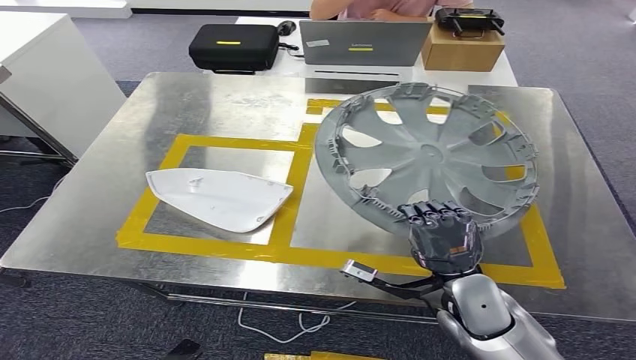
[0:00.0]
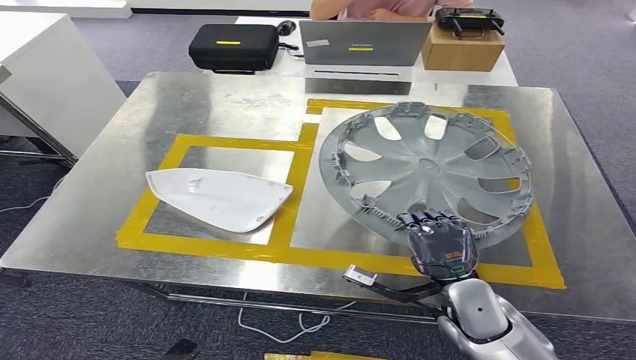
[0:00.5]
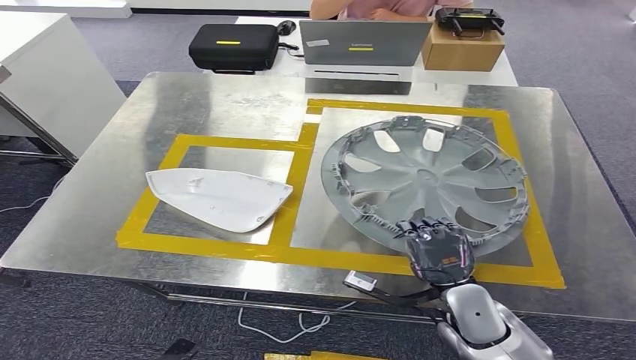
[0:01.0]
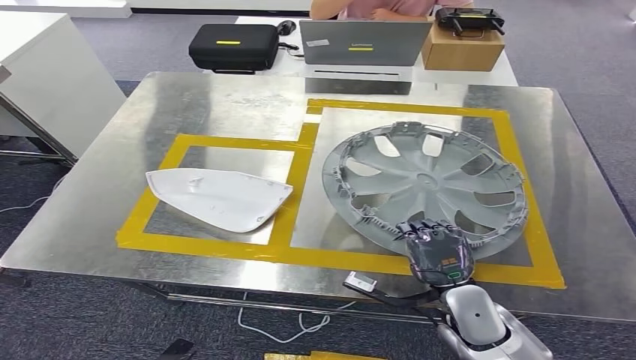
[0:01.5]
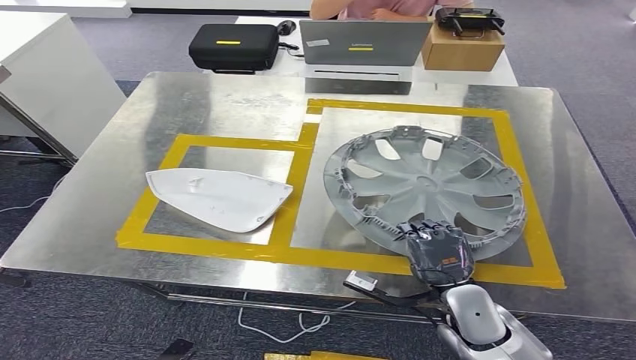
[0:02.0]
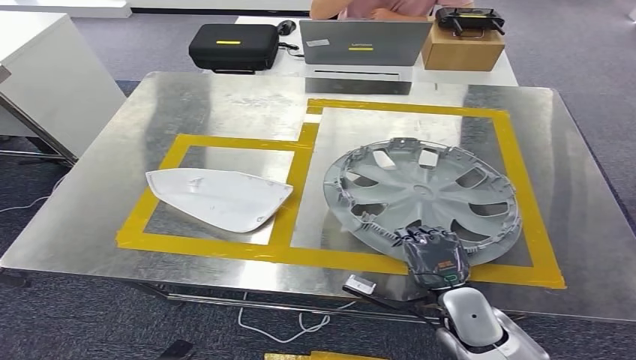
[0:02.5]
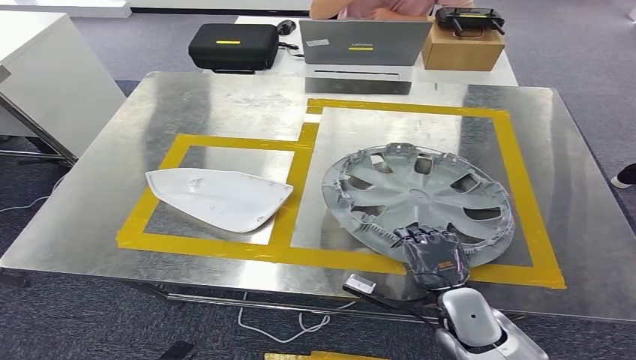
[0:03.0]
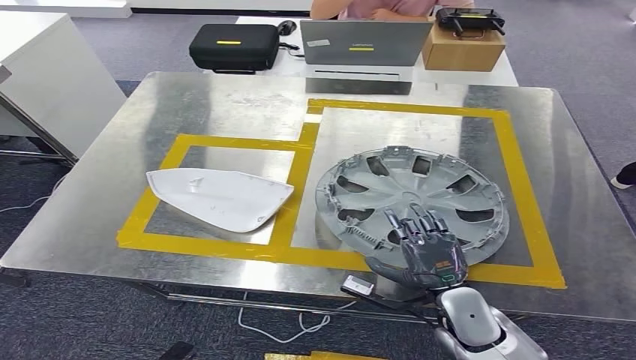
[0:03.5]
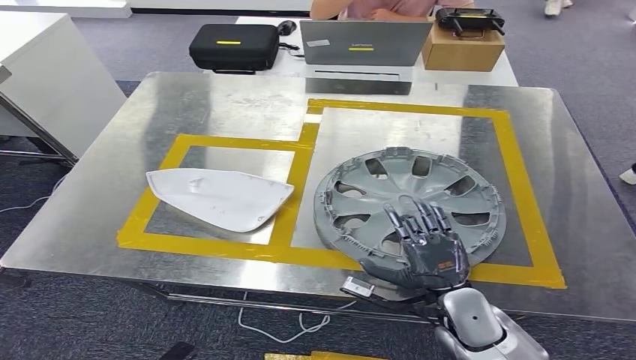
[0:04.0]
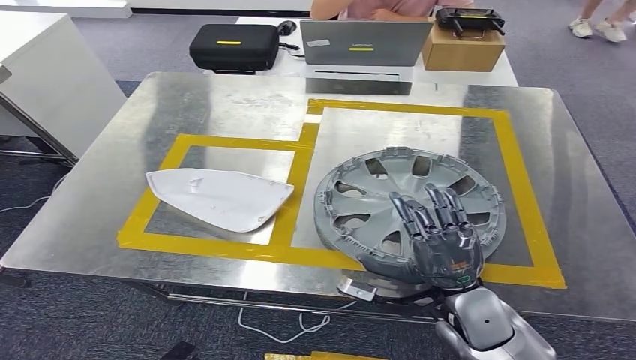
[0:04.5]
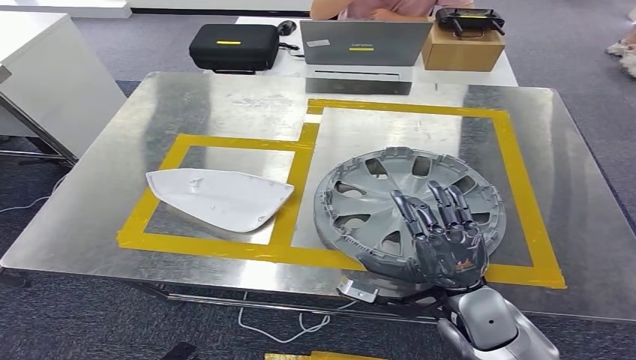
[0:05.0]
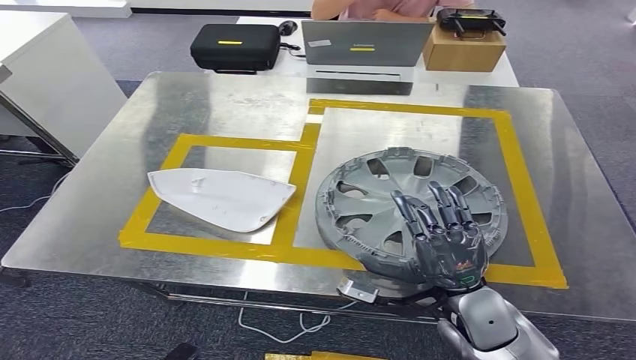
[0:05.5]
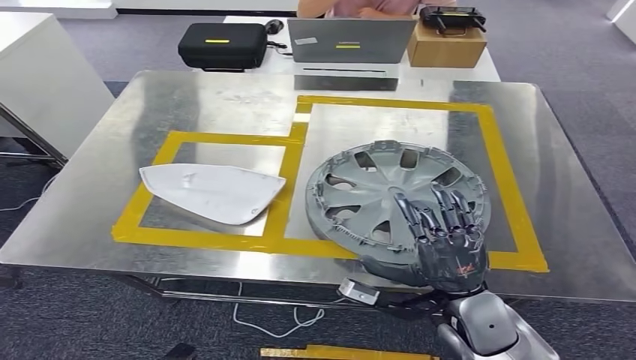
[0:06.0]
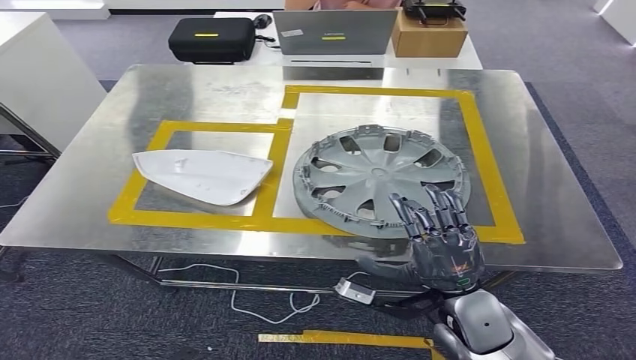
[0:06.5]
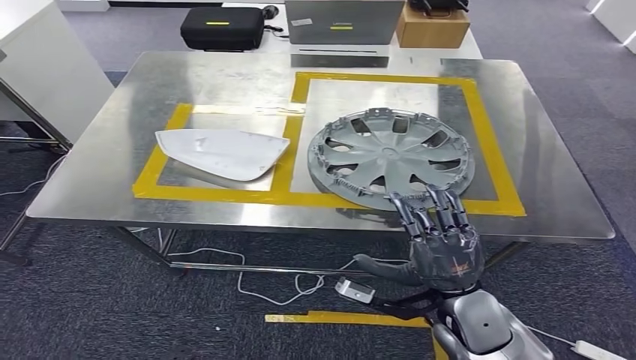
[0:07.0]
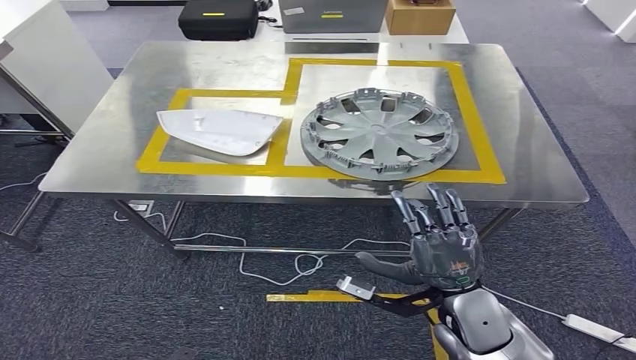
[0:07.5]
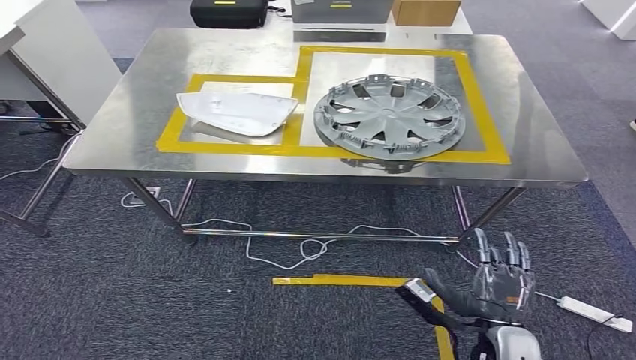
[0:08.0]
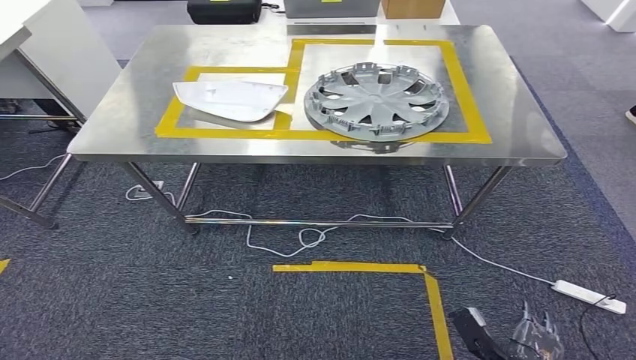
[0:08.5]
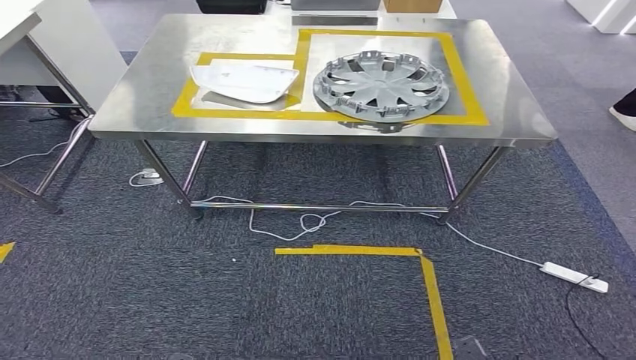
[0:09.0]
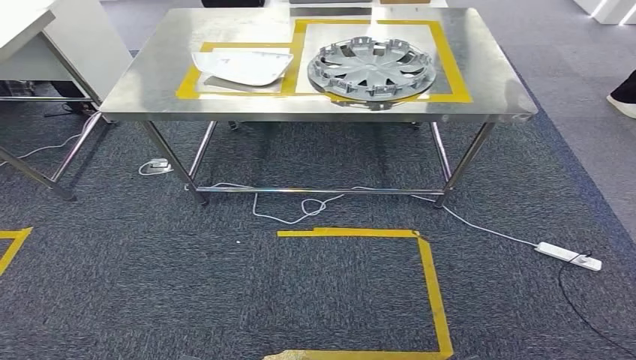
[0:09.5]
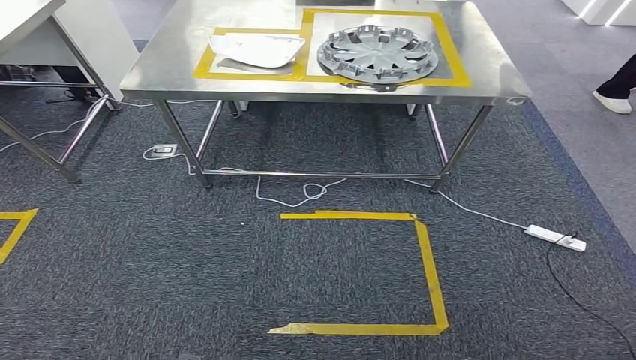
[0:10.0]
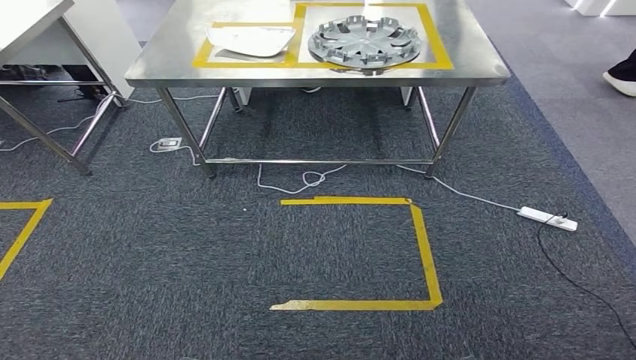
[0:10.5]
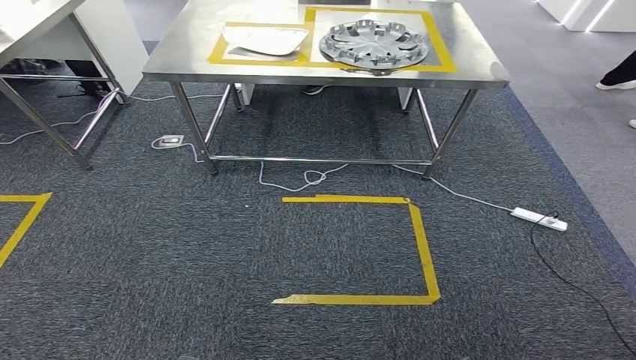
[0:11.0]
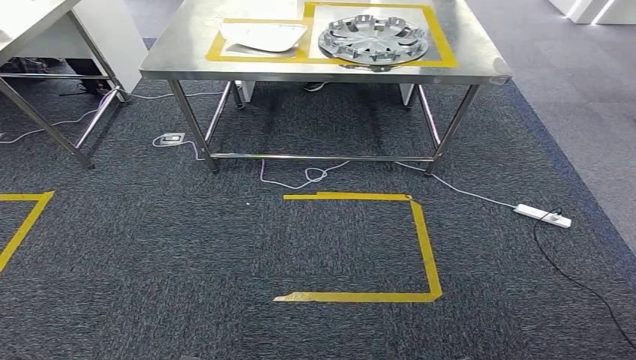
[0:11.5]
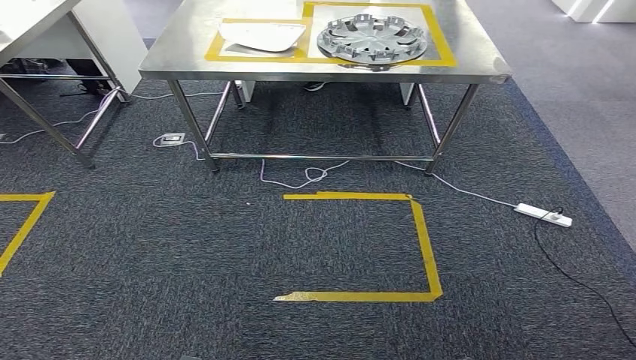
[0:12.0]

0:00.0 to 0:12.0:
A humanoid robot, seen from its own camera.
Step, 0:00.0 to 0:09.0: Insert the small component into the corresponding slot on the workbench.
0:00.0 to 0:04.0: The hands move only a little.

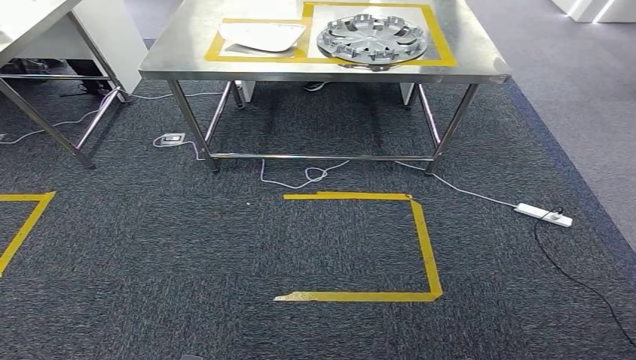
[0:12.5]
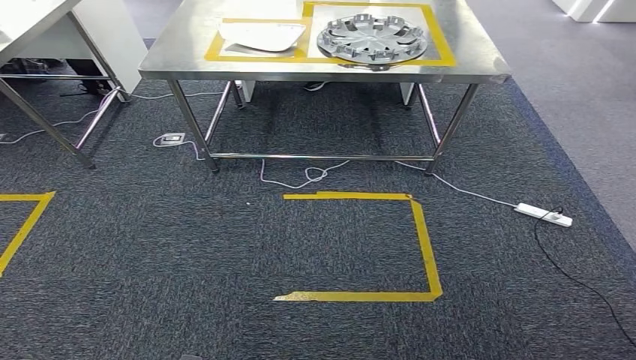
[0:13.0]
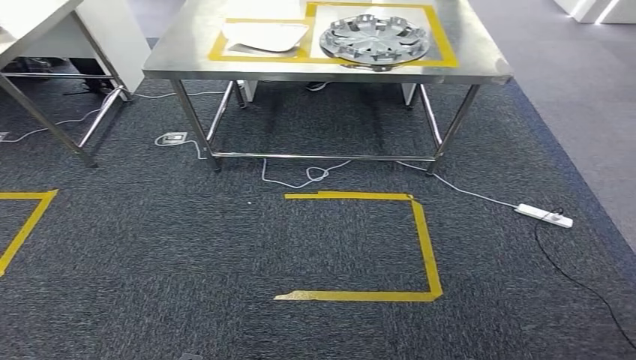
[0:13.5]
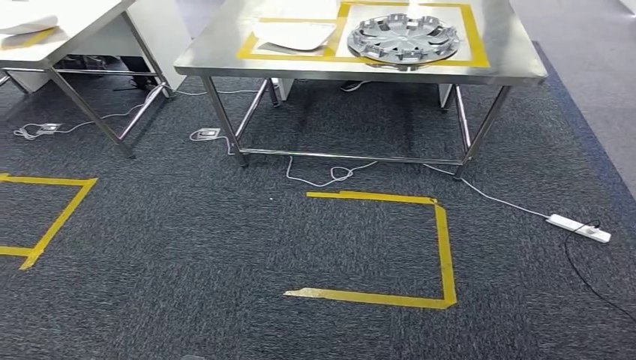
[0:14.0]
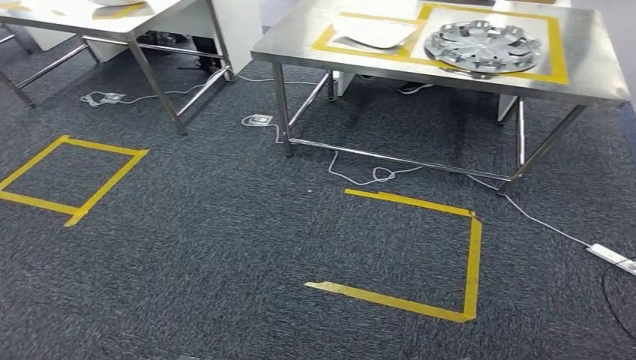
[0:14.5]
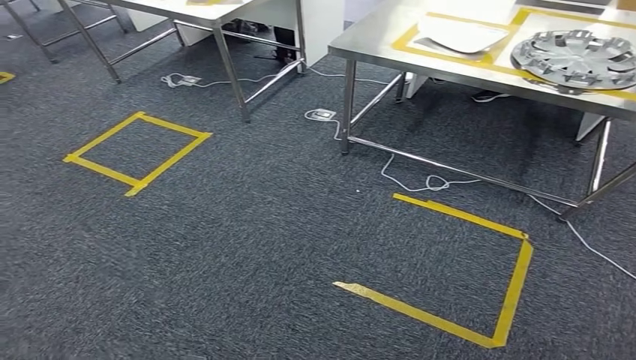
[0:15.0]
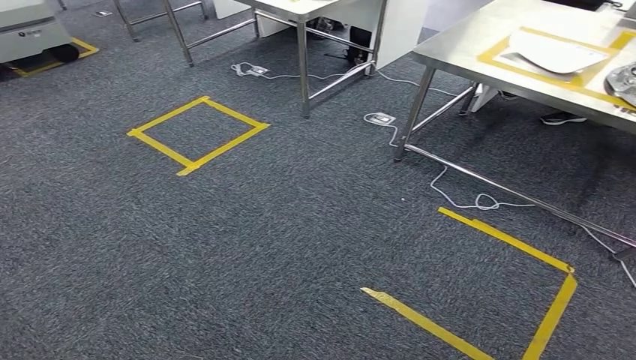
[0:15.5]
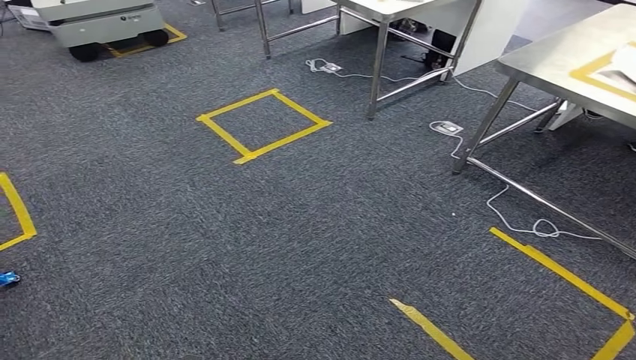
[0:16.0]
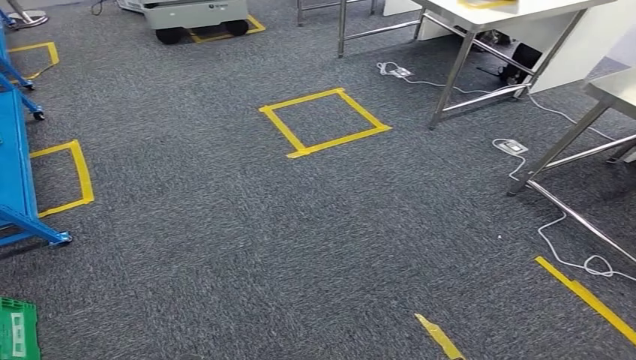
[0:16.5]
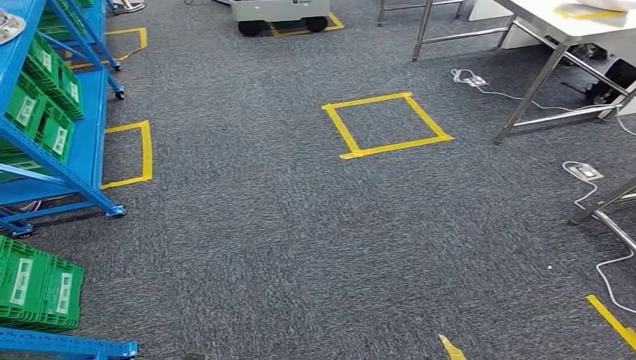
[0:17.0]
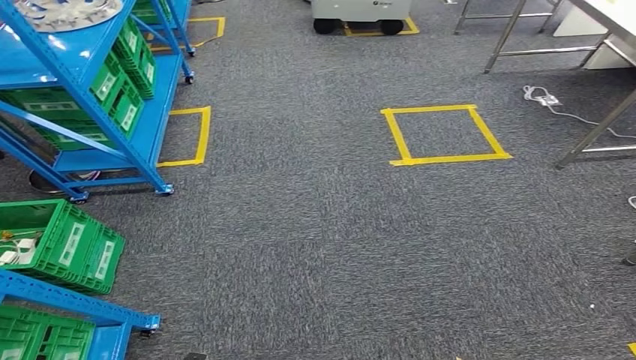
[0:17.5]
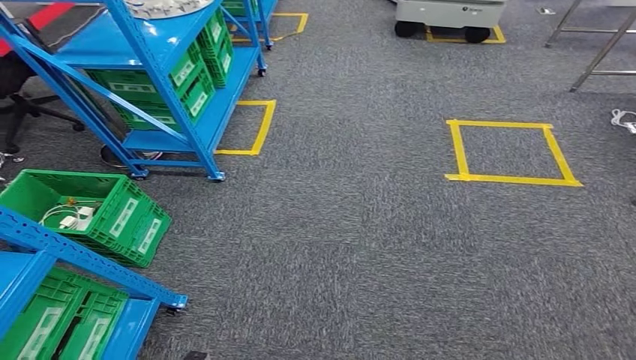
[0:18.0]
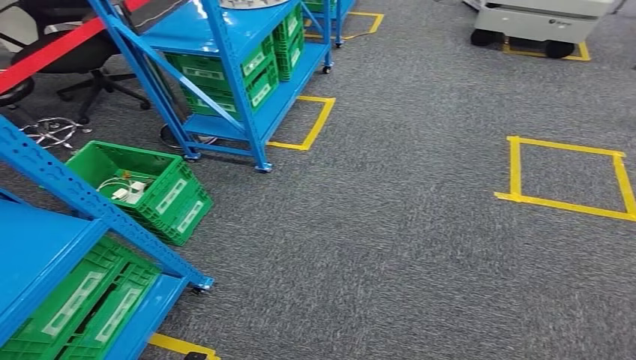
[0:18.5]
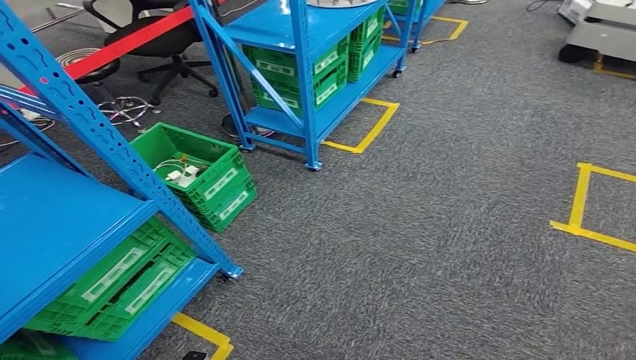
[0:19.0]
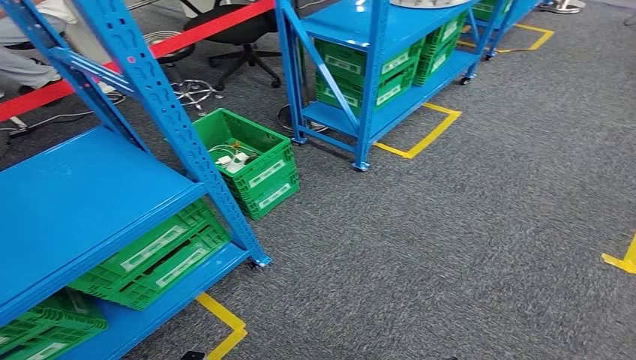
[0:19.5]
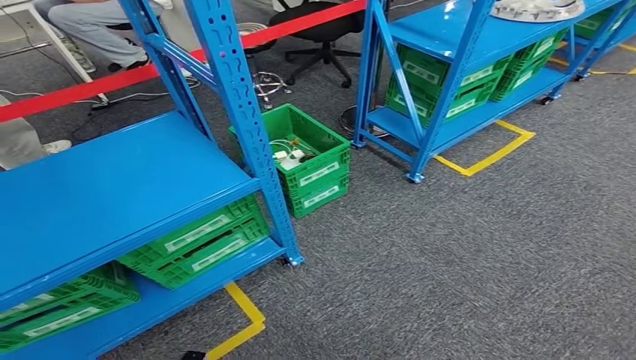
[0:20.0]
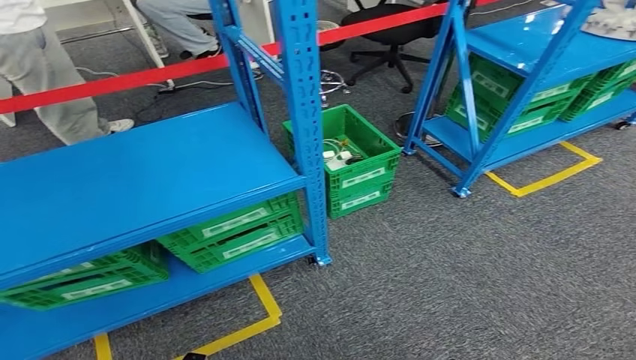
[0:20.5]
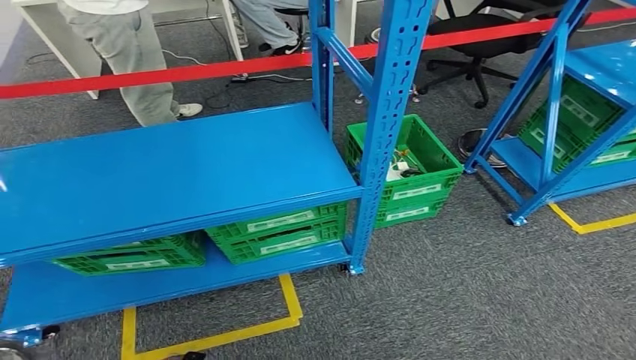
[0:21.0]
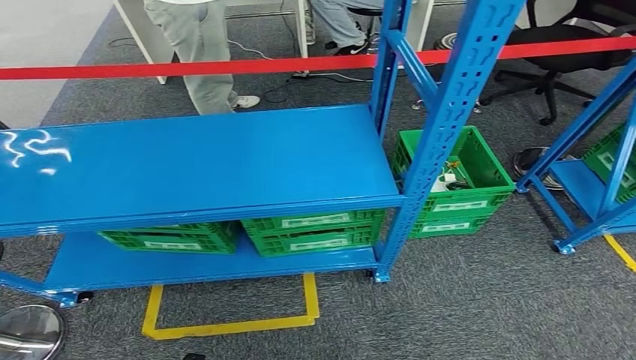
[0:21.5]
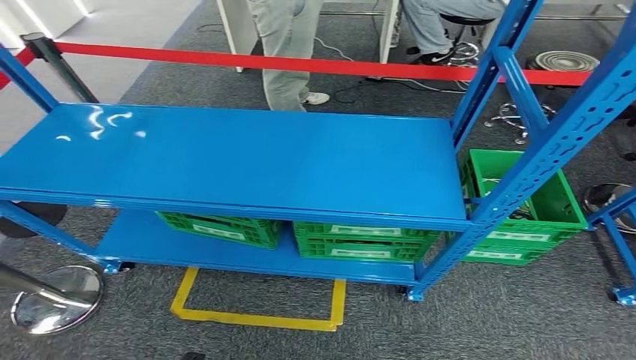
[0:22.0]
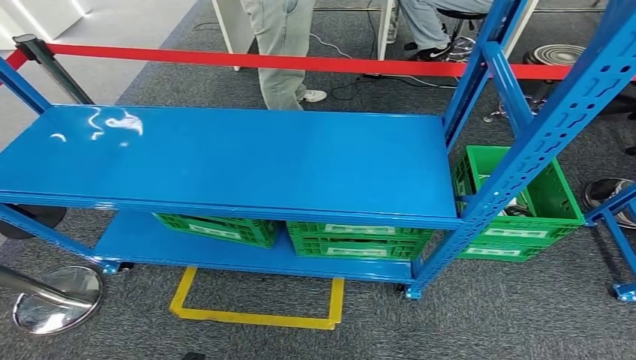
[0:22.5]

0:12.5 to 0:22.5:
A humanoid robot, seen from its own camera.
Step, 0:12.5 to 0:22.5: Return to the initial position at the workbench.
